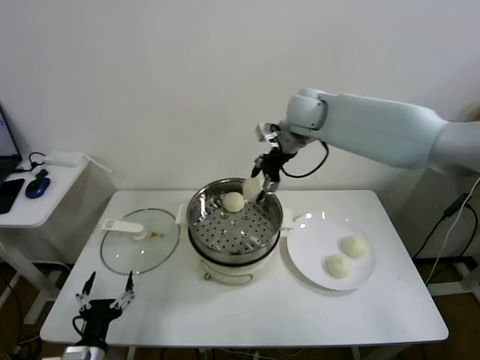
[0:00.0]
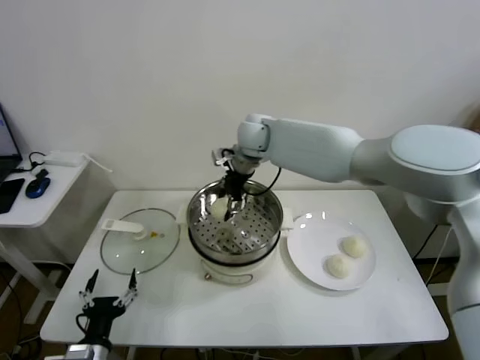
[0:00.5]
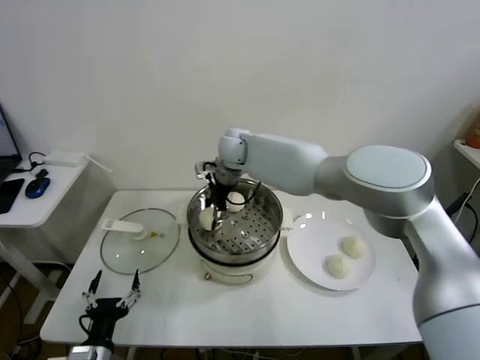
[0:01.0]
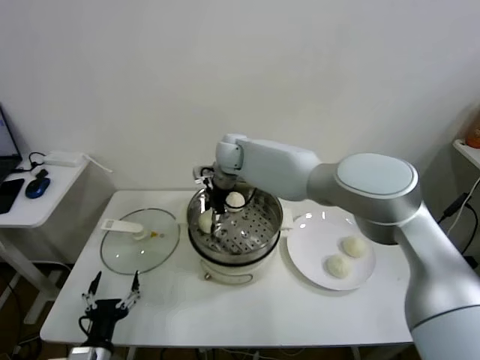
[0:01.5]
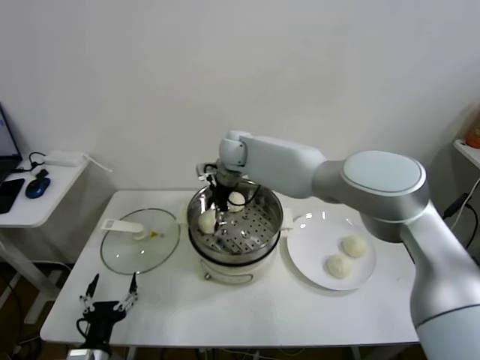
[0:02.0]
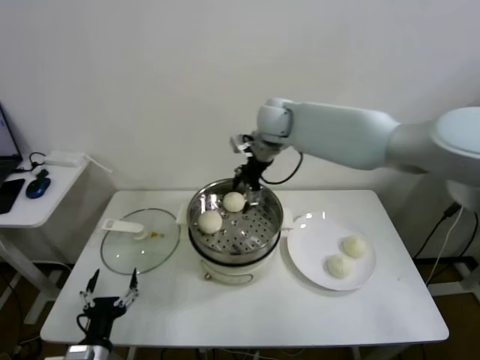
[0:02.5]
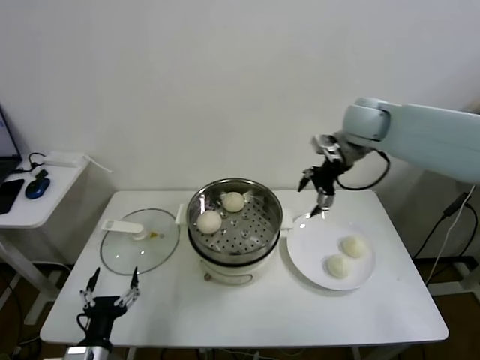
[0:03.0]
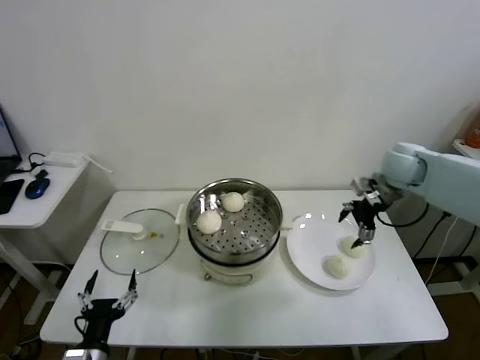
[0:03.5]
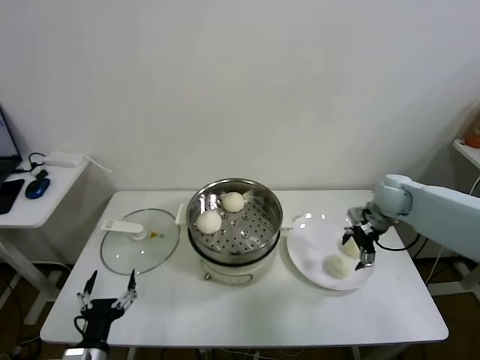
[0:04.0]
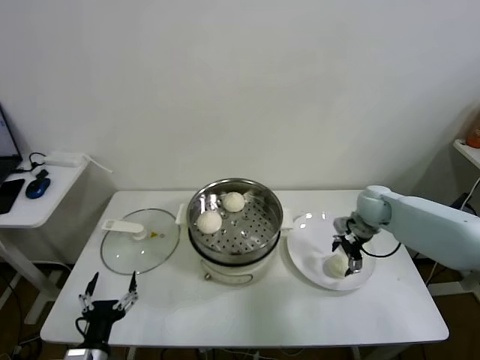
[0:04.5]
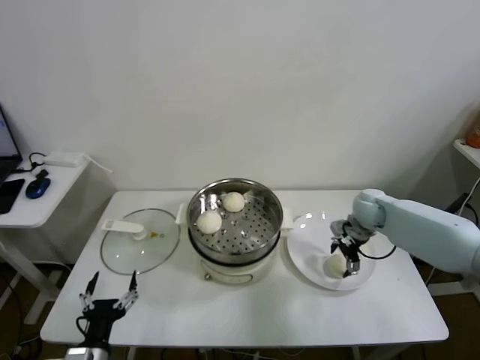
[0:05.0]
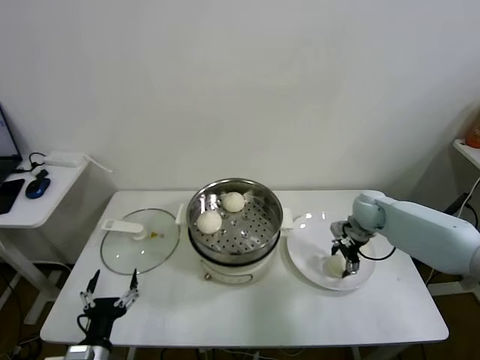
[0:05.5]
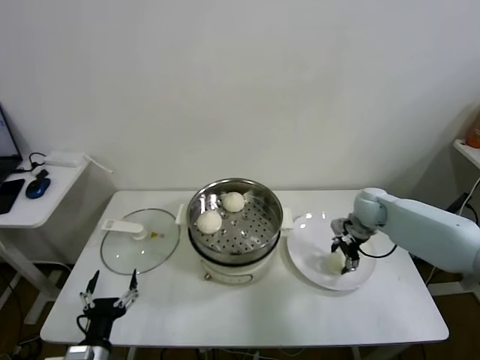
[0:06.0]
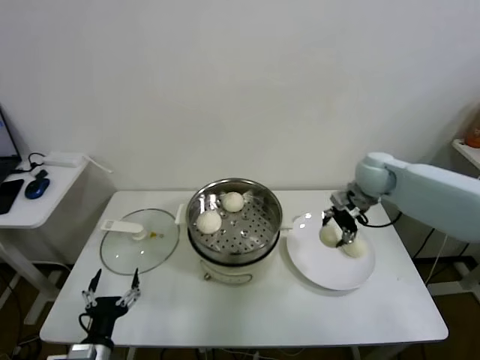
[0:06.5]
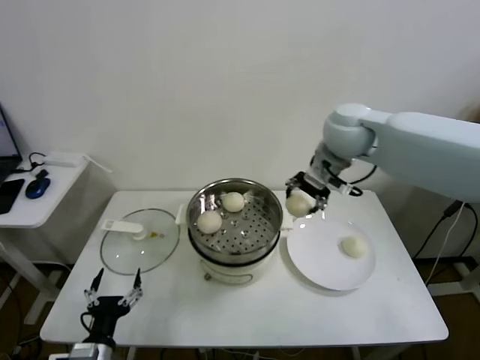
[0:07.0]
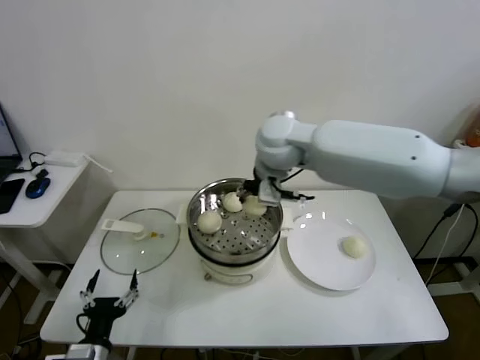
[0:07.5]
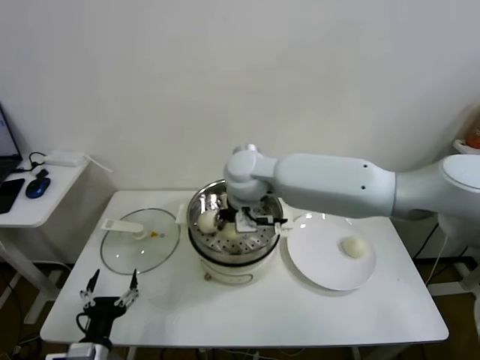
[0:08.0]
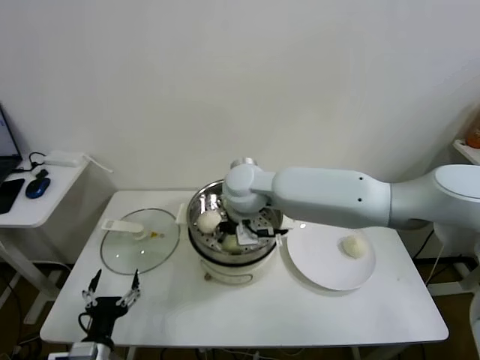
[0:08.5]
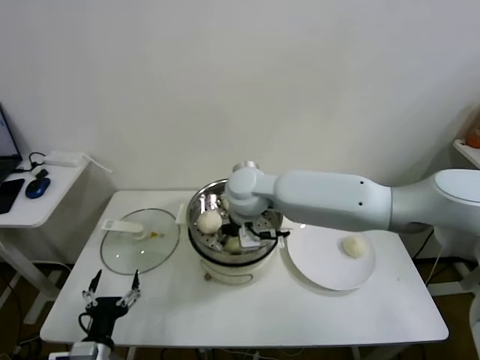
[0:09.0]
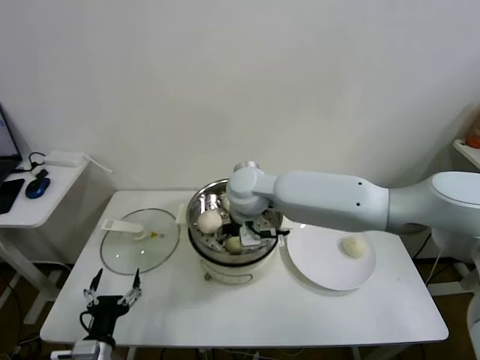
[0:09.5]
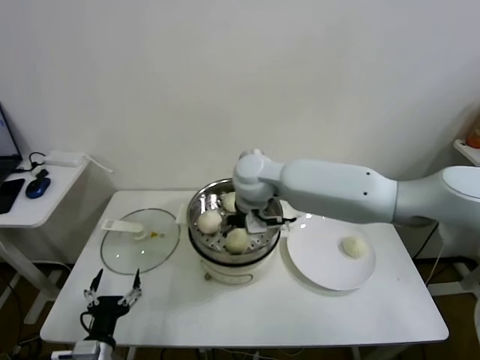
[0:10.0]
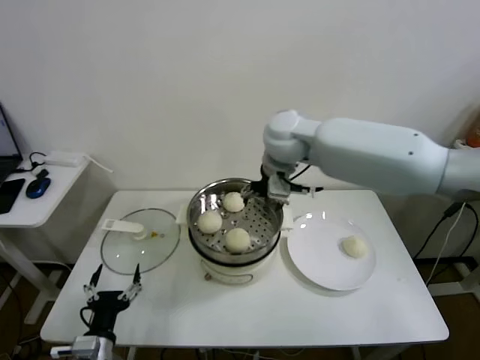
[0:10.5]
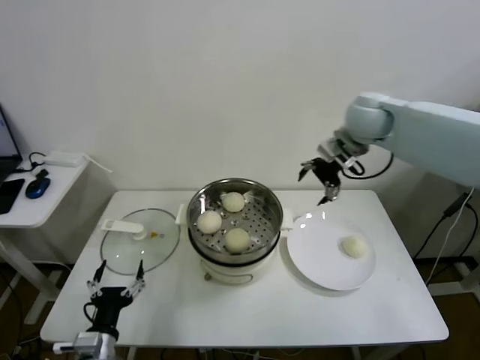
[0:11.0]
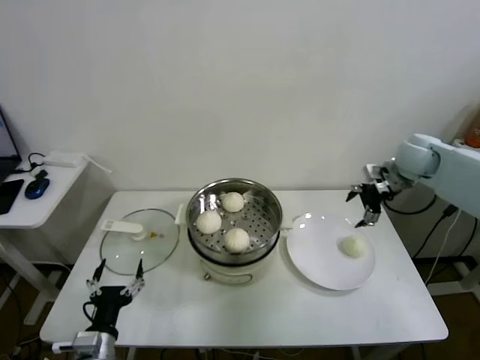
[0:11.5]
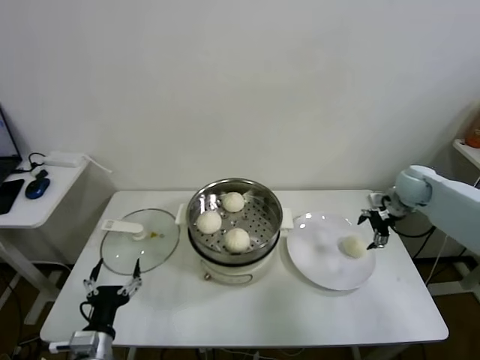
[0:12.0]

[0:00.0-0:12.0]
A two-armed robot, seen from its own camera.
Task of the whole recording: take steamed baozi put them in steamer.
Step, 0:00.0 to 0:02.0: Place the baozi on the steamer with right gripper.
Step, 0:02.5 to 0:05.5: Grasp the baozi in the plate with right gripper.
Step, 0:06.0 to 0:09.5: Place the baozi on the steamer with right gripper.
0:00.0 to 0:02.0: The right gripper heads to the left and downward, covering about 15 cm, and opens up.
0:02.0 to 0:04.0: The right gripper heads to the right, covering approximately 40 cm.
0:04.0 to 0:06.0: The right gripper travels downward by approximately 5 cm, and closes up.
0:06.0 to 0:08.0: The right gripper heads to the left and upward, covering roughly 35 cm.
0:08.0 to 0:10.0: The right gripper opens its fingers.
0:10.0 to 0:12.0: The right gripper is displaced to the right by about 40 cm.

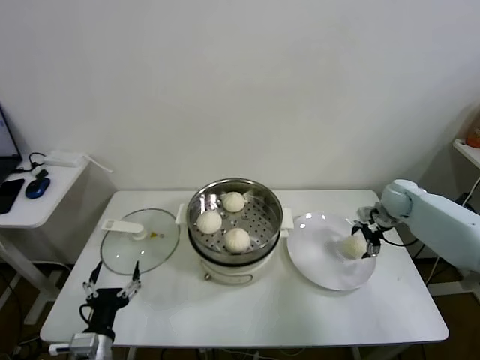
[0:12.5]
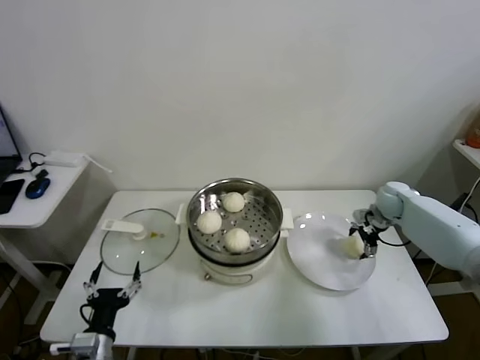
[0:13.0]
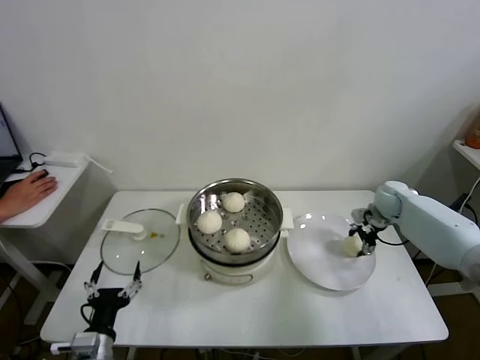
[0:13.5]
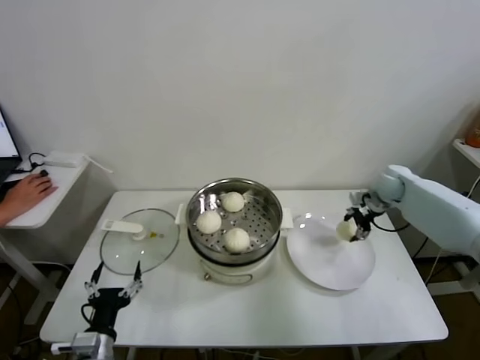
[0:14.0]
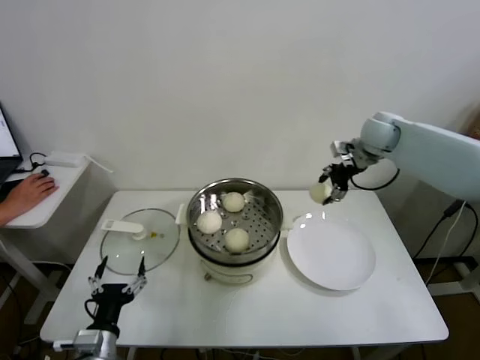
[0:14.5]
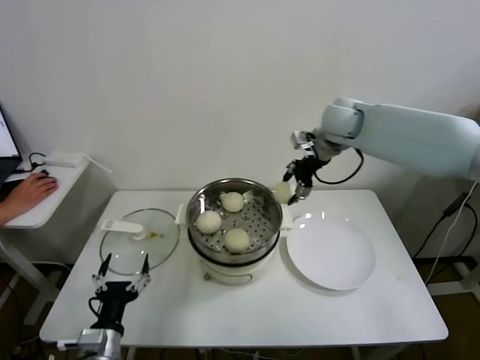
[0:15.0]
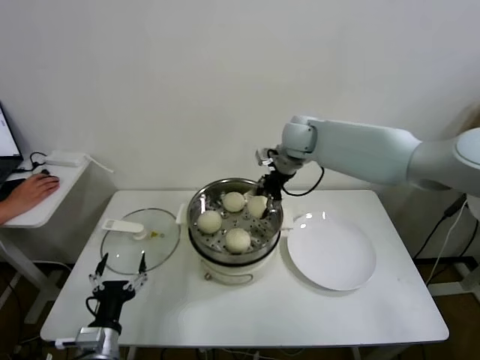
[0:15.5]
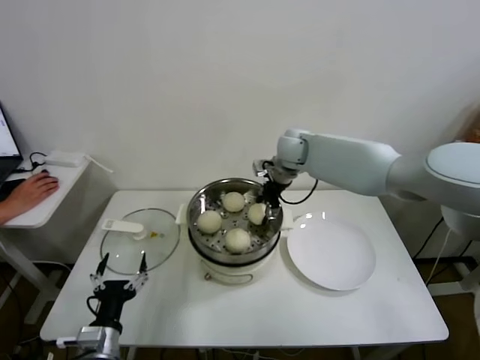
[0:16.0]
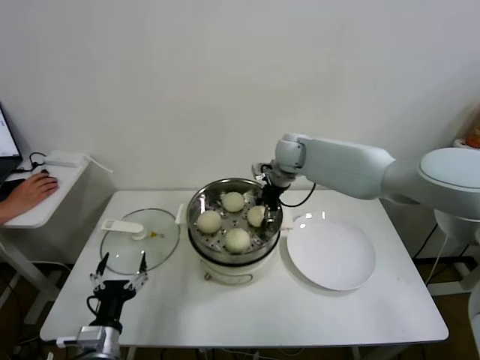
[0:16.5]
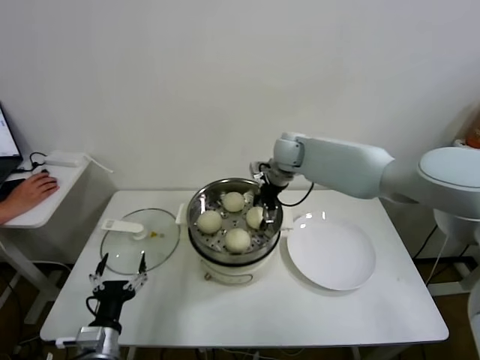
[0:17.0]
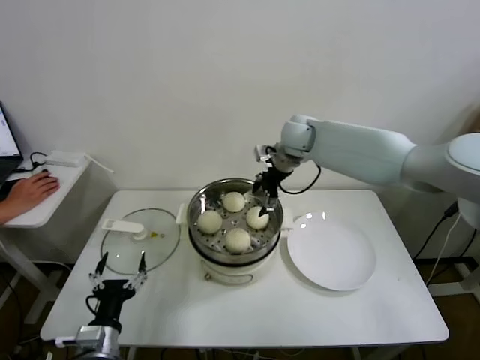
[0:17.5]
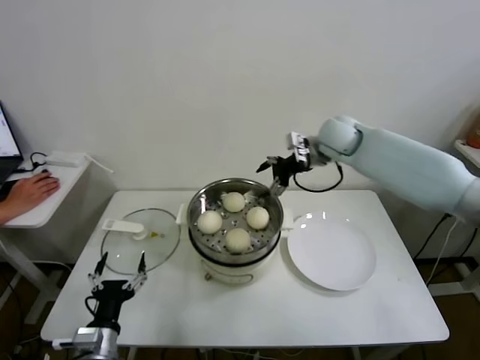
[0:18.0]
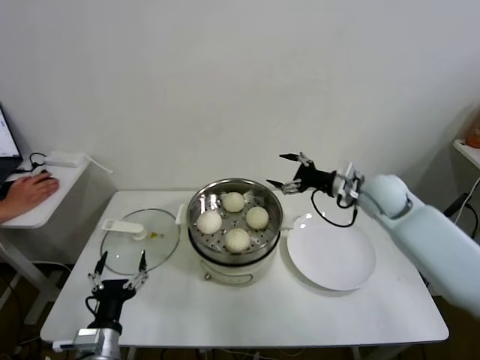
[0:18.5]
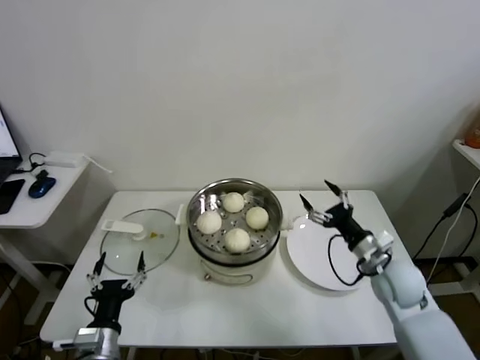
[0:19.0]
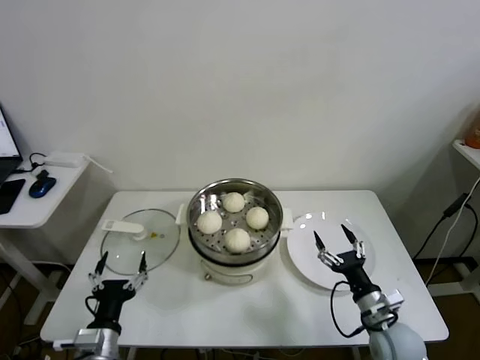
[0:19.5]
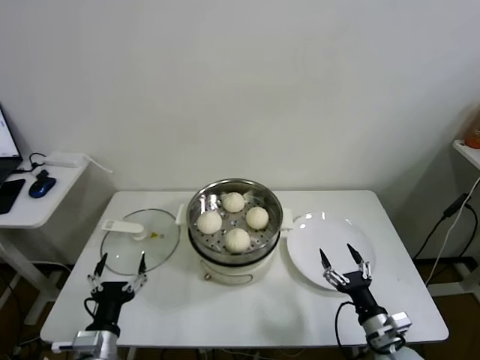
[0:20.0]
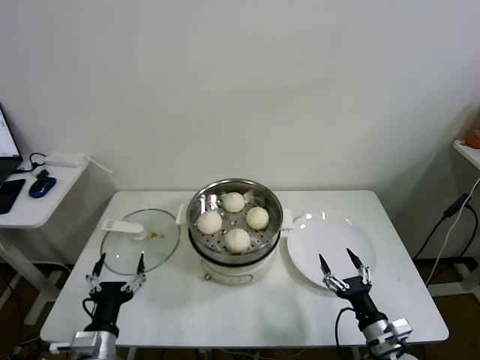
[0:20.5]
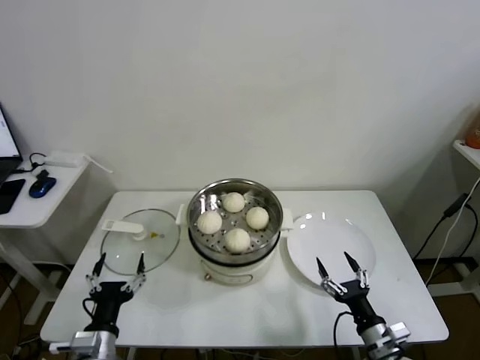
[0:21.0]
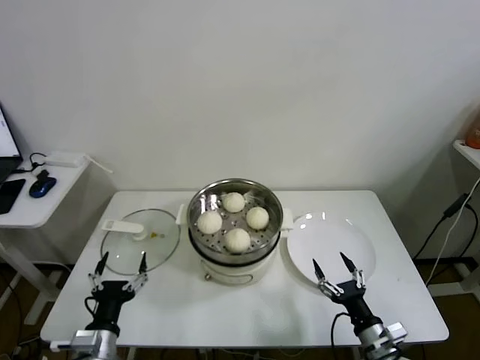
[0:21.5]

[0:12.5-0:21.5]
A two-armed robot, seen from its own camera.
Task of the whole recording: take steamed baozi put them in steamer.
Step, 0:14.0 to 0:16.5: Place the baozi on the steamer with right gripper.
0:12.5 to 0:14.5: The right gripper is displaced upward and to the left by some 20 cm, and closes.
0:14.5 to 0:17.0: The right gripper is displaced to the left by about 20 cm, and opens.
0:17.0 to 0:19.5: The right gripper goes some 50 cm backward, downward and to the right.
0:19.5 to 0:21.5: The right gripper moves backward, roughly 5 cm.
